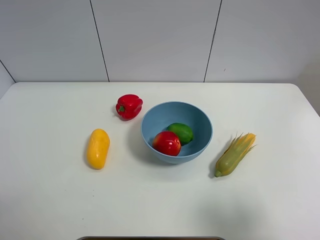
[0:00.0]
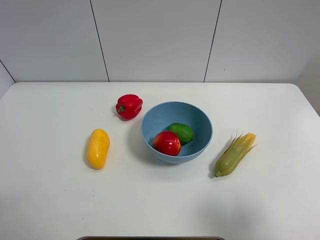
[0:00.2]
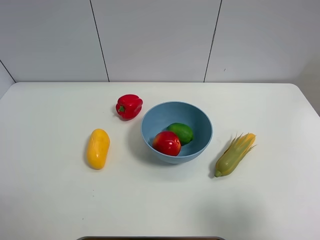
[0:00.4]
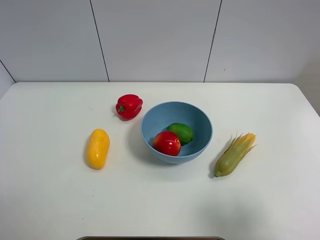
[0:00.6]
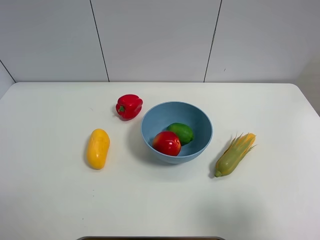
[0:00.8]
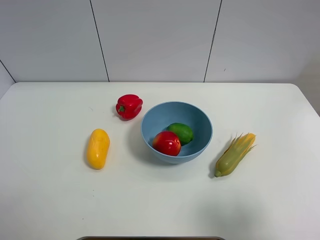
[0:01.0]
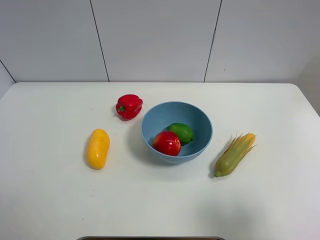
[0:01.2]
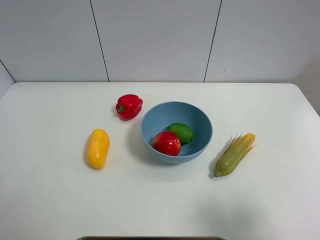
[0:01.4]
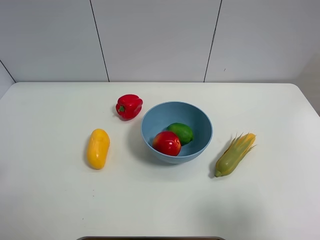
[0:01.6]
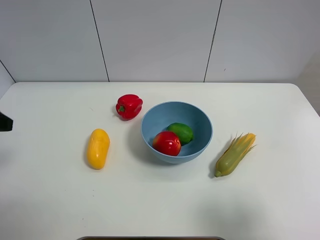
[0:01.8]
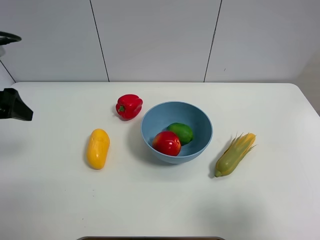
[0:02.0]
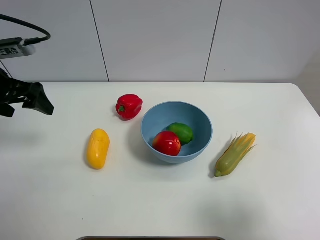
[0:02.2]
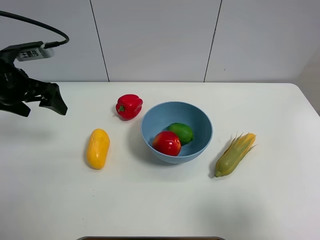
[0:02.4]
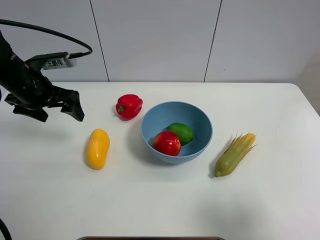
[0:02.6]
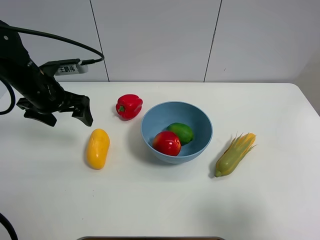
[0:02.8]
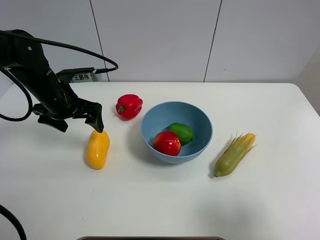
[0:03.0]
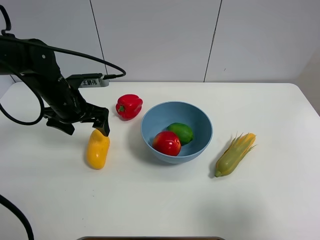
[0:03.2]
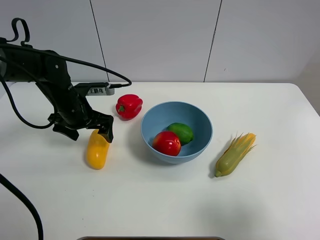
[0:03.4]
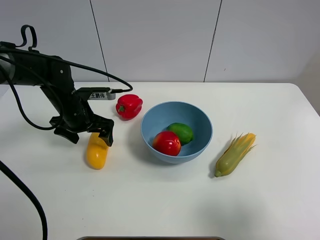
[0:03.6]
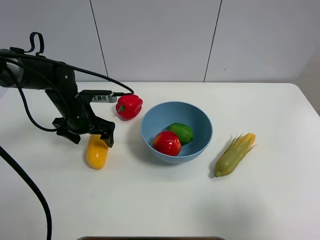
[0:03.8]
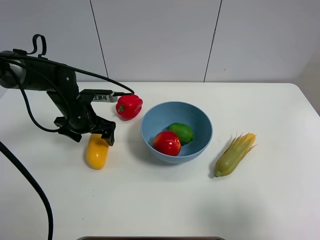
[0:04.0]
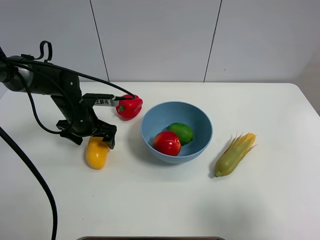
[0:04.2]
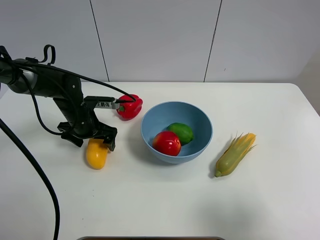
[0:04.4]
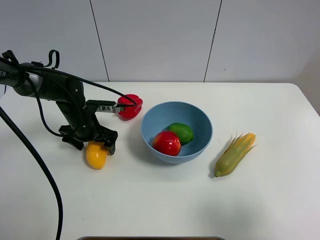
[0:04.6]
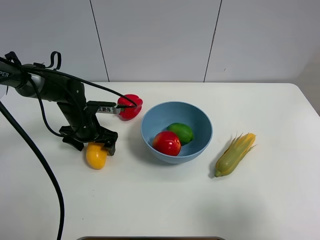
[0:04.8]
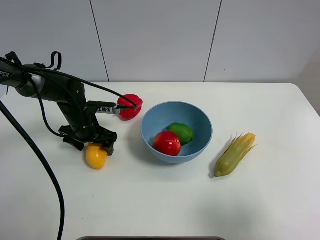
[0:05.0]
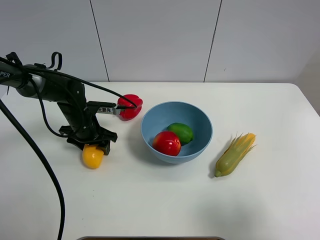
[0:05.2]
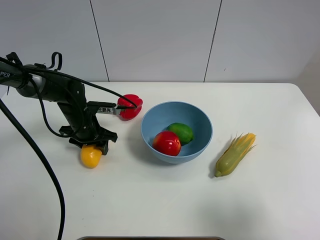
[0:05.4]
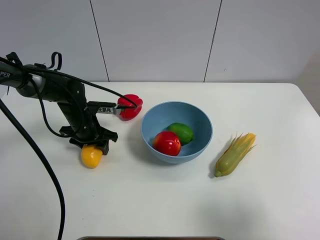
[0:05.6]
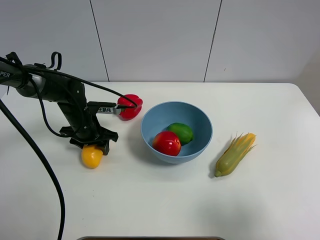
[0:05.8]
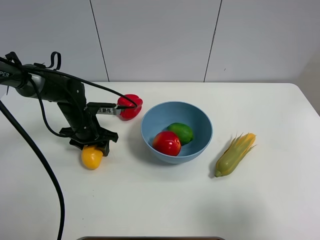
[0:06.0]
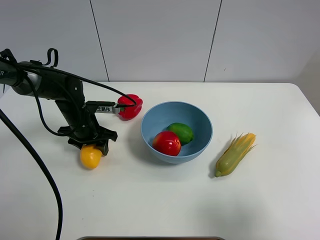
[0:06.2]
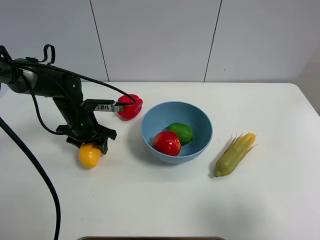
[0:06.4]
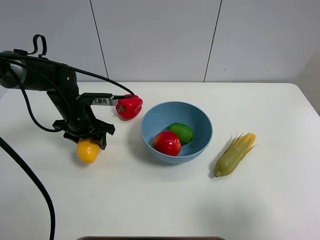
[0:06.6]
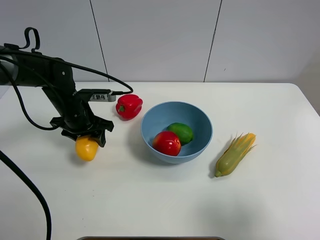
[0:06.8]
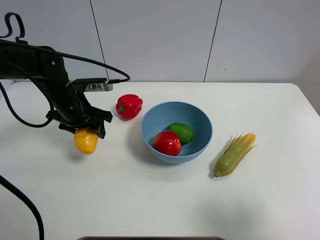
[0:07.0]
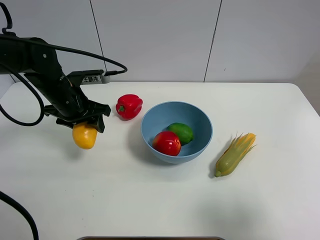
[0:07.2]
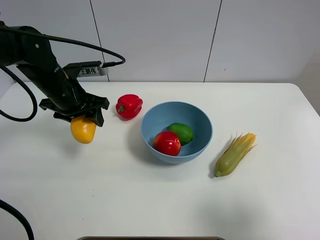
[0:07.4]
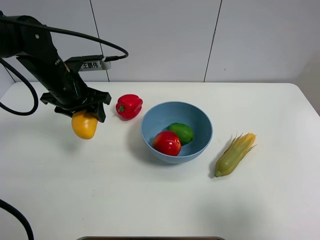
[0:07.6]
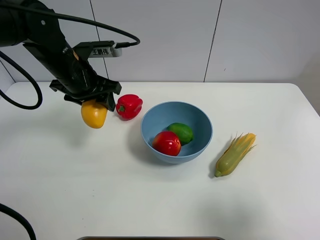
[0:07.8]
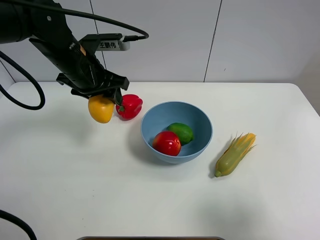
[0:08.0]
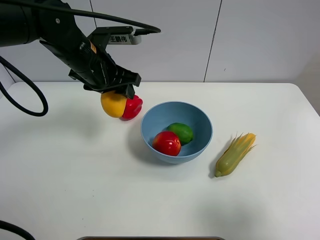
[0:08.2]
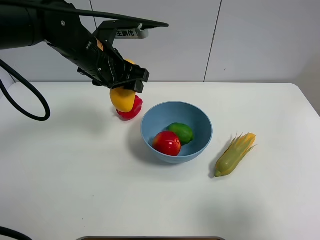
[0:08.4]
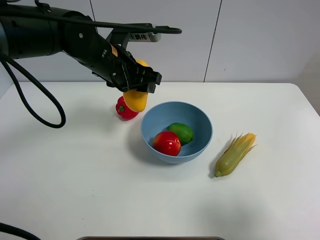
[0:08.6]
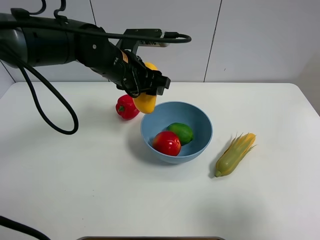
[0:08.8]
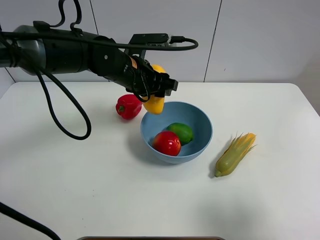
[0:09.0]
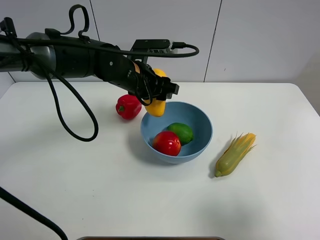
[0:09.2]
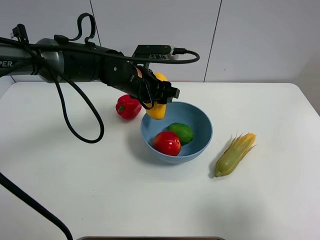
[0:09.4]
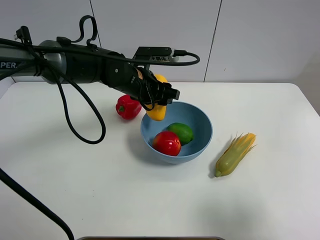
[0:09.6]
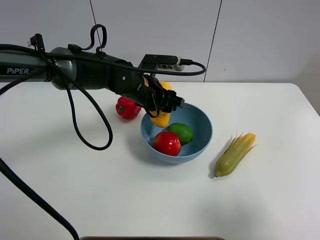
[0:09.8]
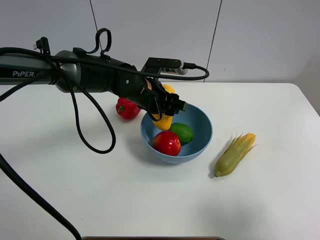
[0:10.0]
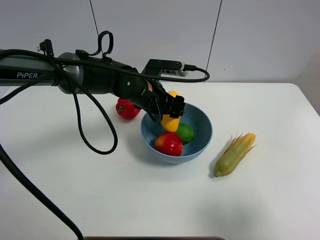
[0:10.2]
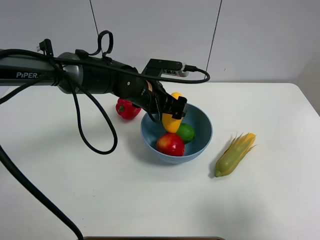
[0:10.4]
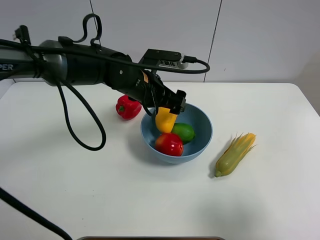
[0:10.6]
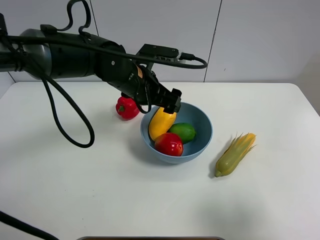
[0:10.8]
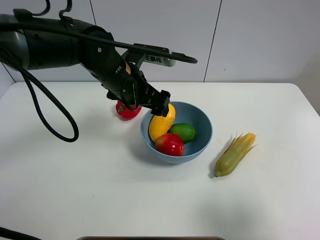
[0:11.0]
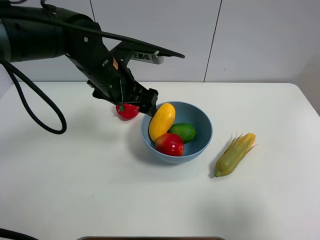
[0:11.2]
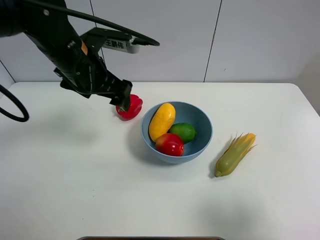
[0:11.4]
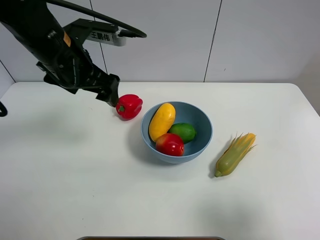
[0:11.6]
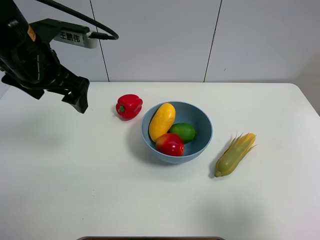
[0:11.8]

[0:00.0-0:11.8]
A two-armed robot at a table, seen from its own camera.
Task of the whole recording: Put the three fruits on the table into a bowl.
Step, 0:00.0 to 0:05.4: Grasp the mango with left gripper.
Step, 0:05.6 to 0:11.0: Place the mango in the blue bowl with left gripper.
0:01.4 to 0:03.0: The left gripper shifts about 30 cm forward and to the right.
0:03.0 to 0:04.4: The left gripper moves downward, about 10 cm.
0:04.4 to 0:06.0: The left gripper closes.
0:06.0 to 0:07.4: The left gripper goes roughly 10 cm upward.
0:07.4 to 0:08.8: The left gripper goes approximately 15 cm to the right.
0:08.8 to 0:10.4: The left gripper heads downward, covering approximately 5 cm, and opens up.
0:10.4 to 0:11.8: The left gripper travels to the left and upward by roughly 20 cm.

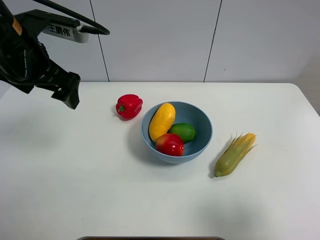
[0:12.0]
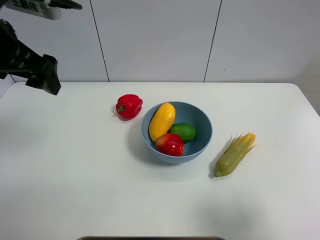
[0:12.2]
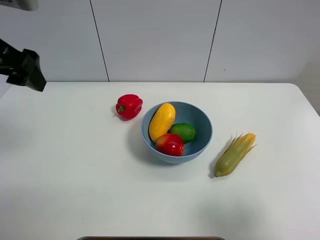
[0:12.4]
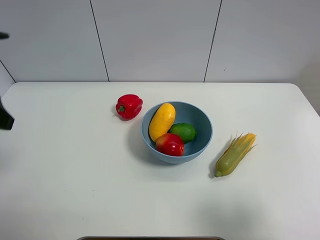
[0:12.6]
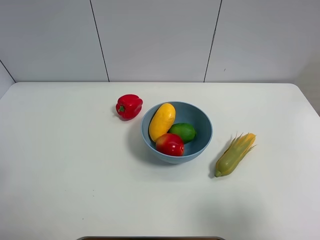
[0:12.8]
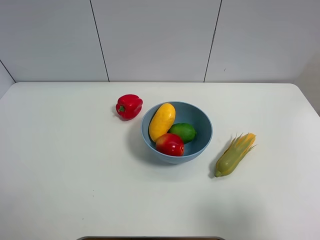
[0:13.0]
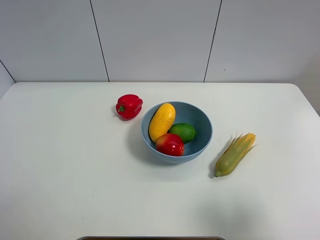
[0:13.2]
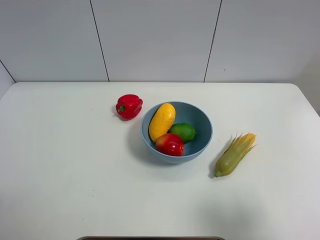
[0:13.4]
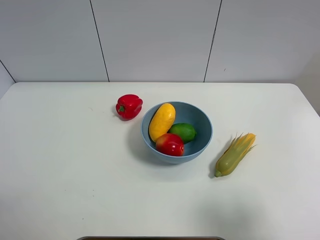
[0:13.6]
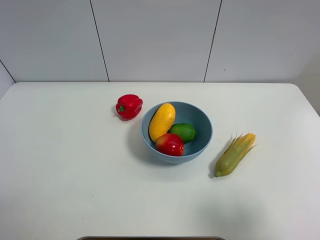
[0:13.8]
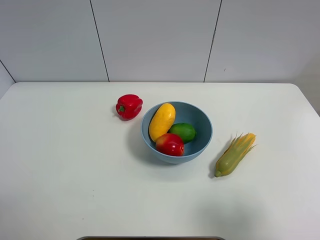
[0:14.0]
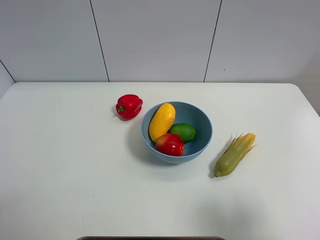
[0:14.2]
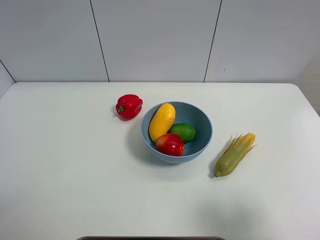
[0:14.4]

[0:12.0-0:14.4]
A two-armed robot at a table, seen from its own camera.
Task of the whole recording: Put the three fruits on the table into a bowl.
0:12.0 to 0:13.2: The left gripper heads backward and to the left, covering some 25 cm.
